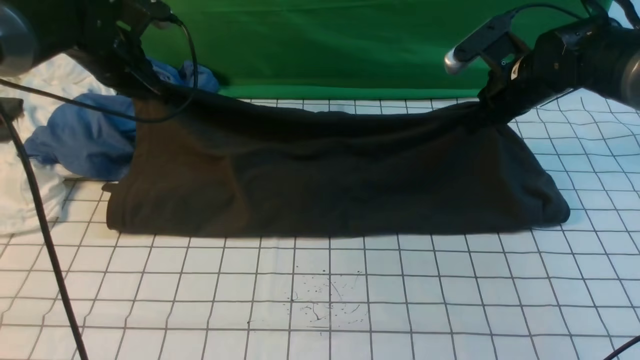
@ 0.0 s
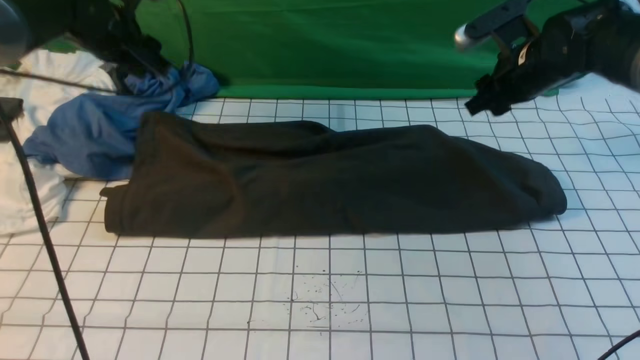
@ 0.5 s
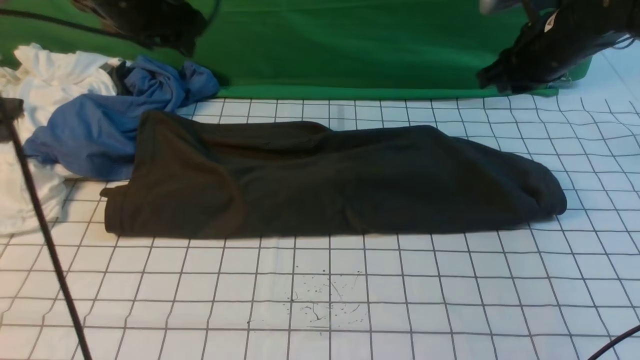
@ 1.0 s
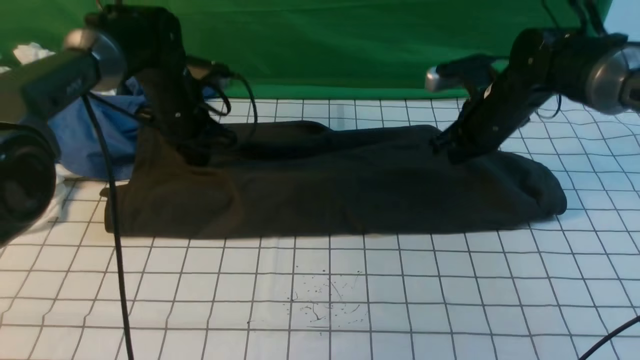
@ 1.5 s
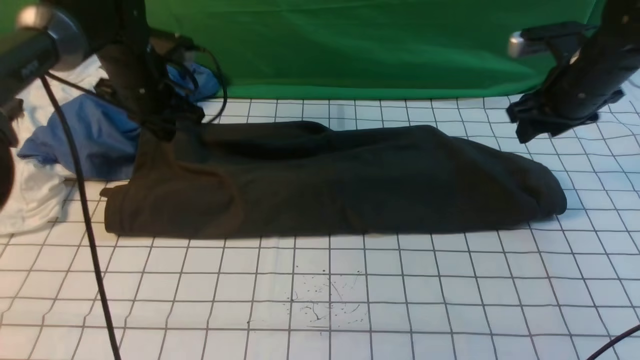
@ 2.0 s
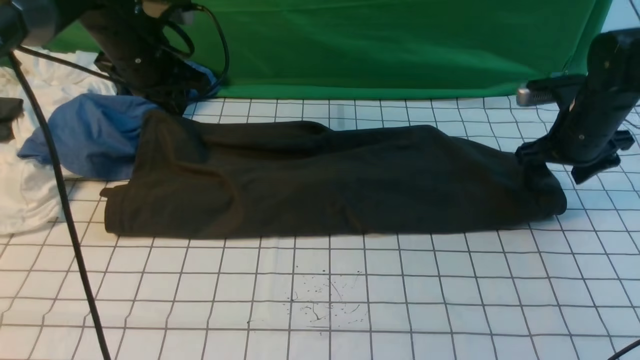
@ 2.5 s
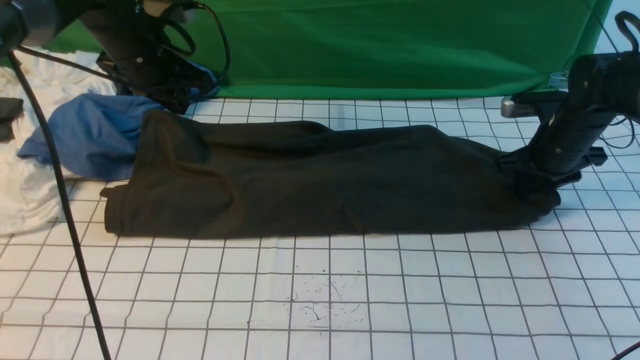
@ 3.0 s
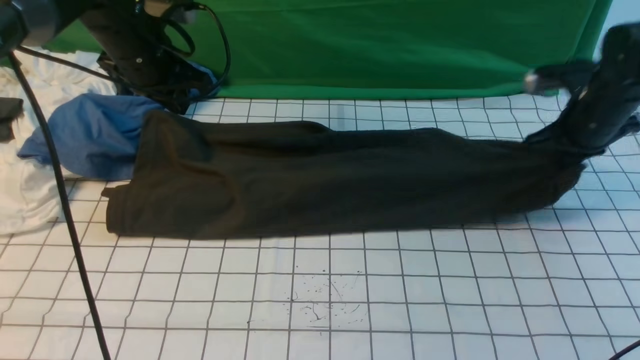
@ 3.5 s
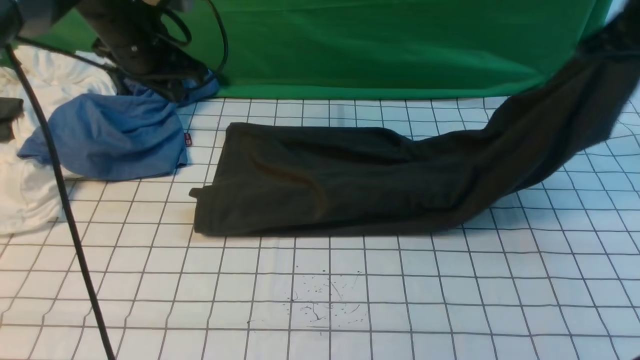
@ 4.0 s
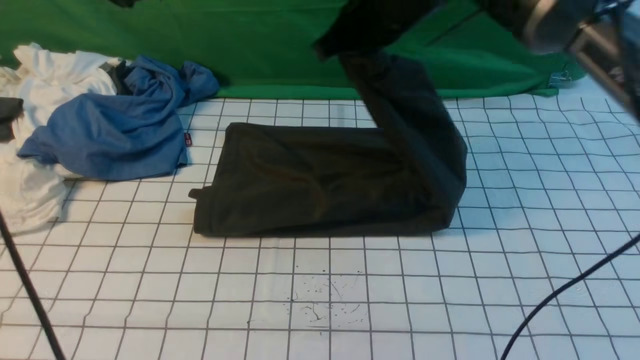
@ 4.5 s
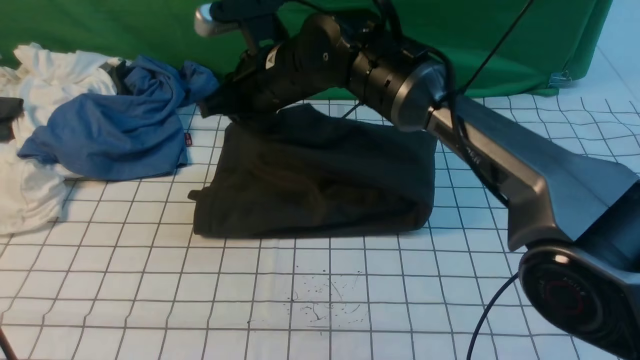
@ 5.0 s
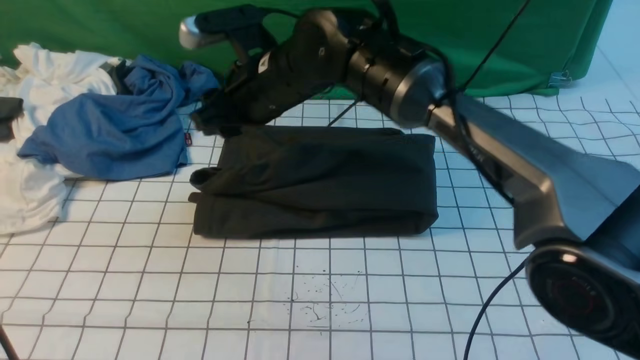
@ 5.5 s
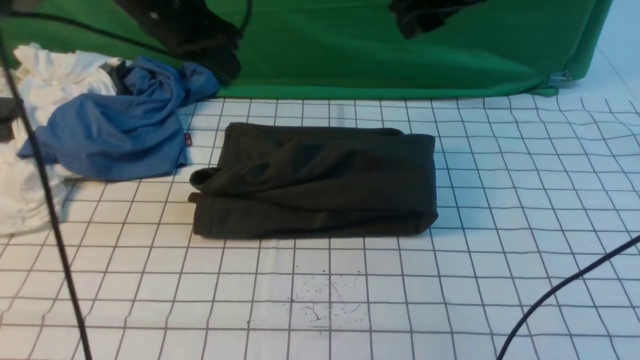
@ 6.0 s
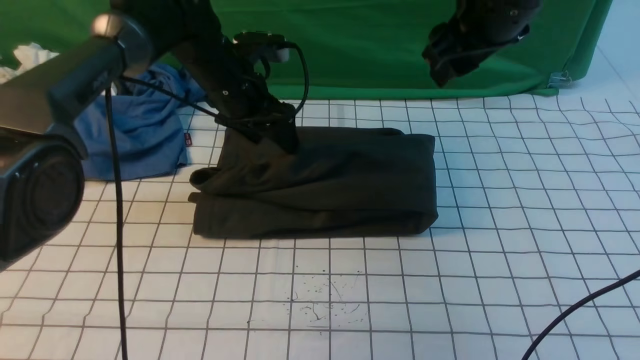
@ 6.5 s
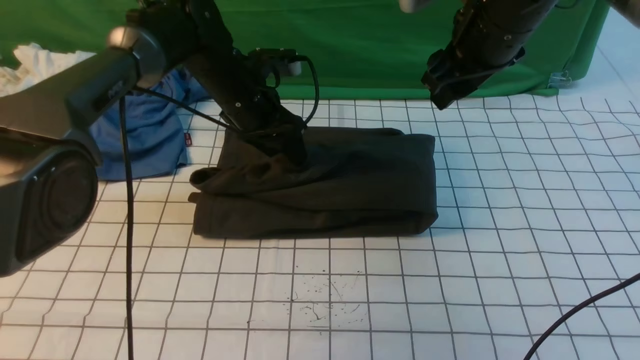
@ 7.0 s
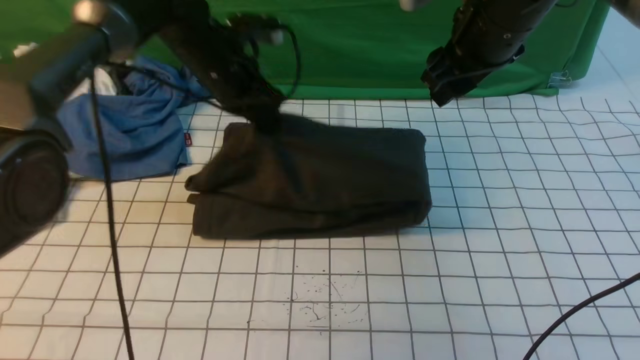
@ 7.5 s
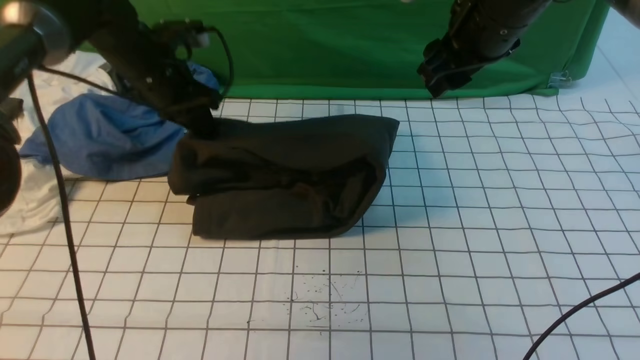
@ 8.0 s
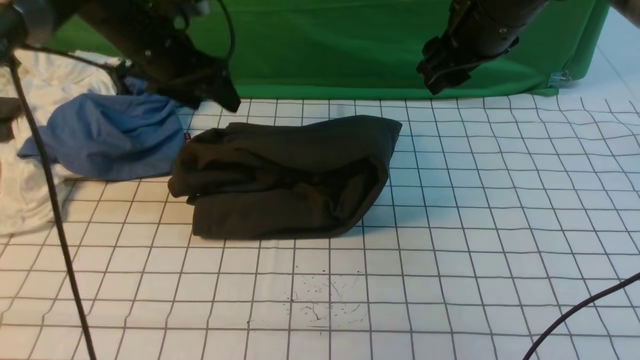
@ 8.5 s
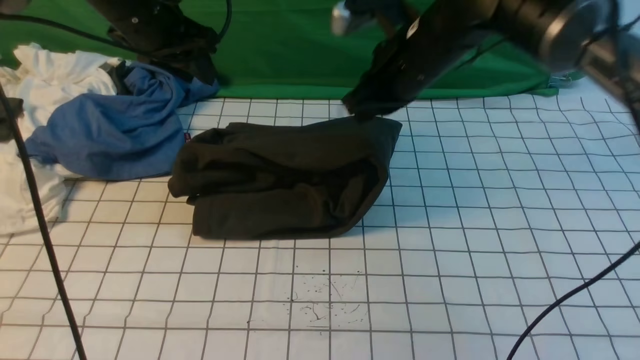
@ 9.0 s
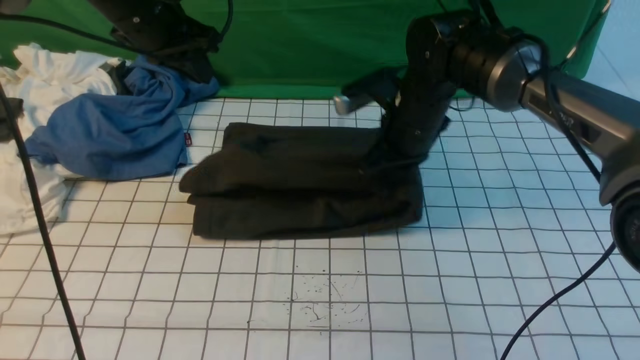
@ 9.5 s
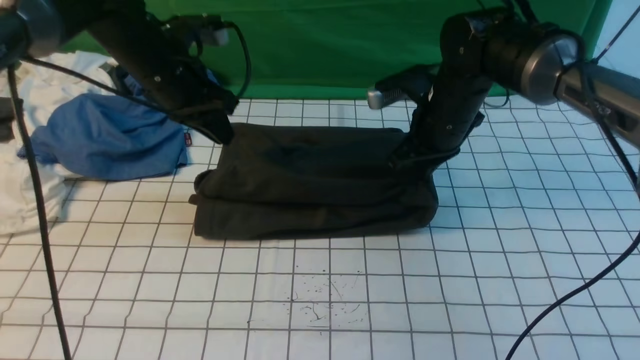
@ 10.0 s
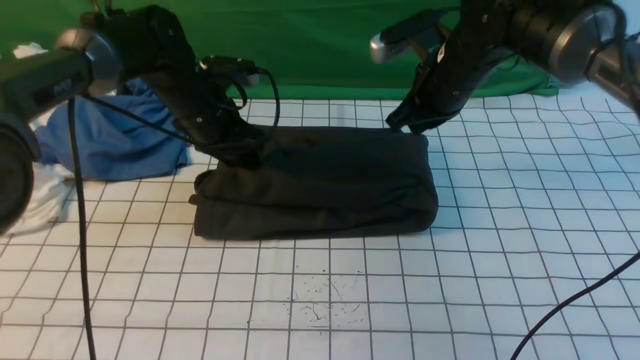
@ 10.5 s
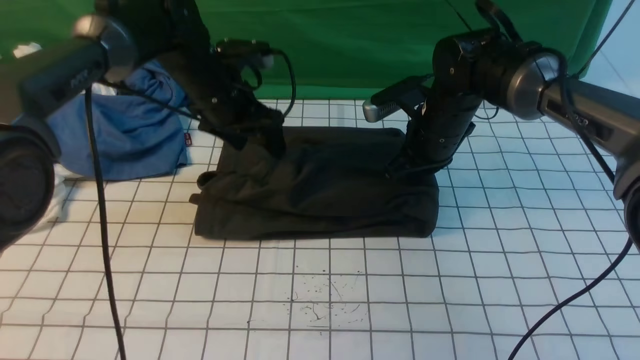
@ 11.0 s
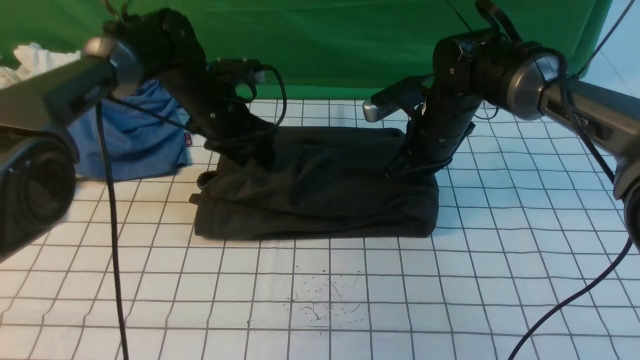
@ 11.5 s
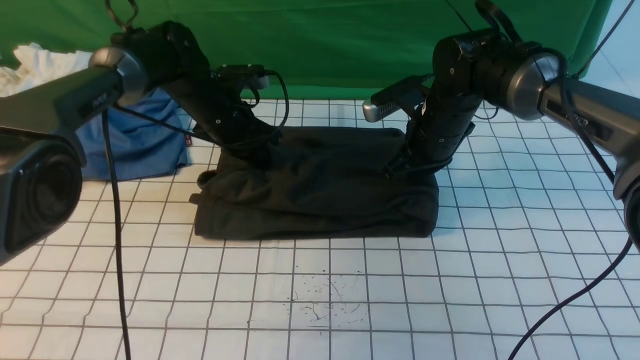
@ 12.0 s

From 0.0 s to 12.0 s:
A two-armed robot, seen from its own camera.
Step, from 1.0 s to 3.5 s: use the right arm to clamp the right edge of the fabric.
Step, from 4.0 s to 5.0 s: use the right arm to drag the right edge of the fabric to the left and folds it over the left edge.
From 0.0 s to 2.0 s: The right gripper shifts roughly 5 cm to the right, travels upward and back again, approximately 5 cm each way, and opens up, while the left gripper moves about 5 cm upward and comes back, and opens, then closes again.
From 2.0 s to 4.0 s: The right gripper shifts about 10 cm upward, and closes. Meanwhile the left gripper shifts approximately 5 cm upward.
From 4.0 s to 6.0 s: The right gripper shifts some 15 cm to the left, and opens. The left gripper goes to the left and returns, some 10 cm each way.
From 6.0 s to 8.0 s: The left gripper goes roughly 10 cm downward, and opens, then closes once more; the right gripper ends up some 5 cm from where it was.
From 8.0 s to 10.0 s: The right gripper travels downward by some 10 cm, and closes. Meanwhile the left gripper goes upward and returns, roughly 10 cm each way, and opens, then closes once more.
From 10.0 s to 12.0 s: The left gripper travels downward by roughly 5 cm, and opens, then closes again.

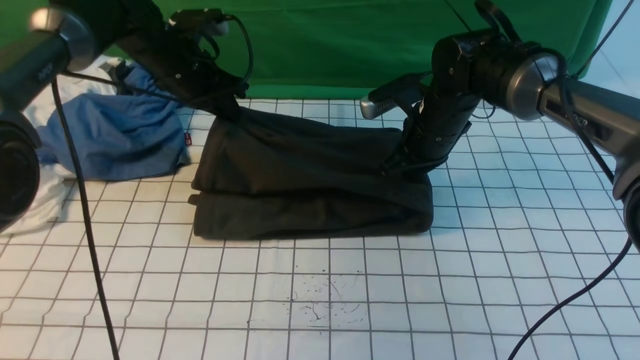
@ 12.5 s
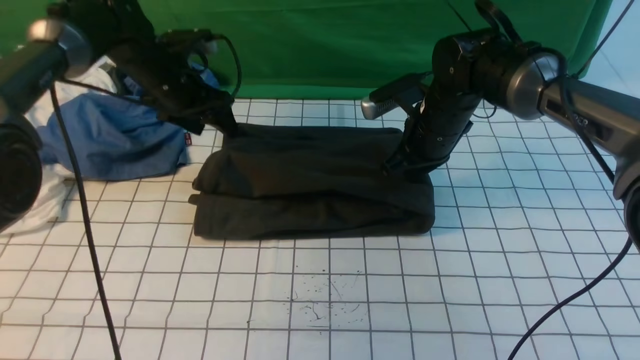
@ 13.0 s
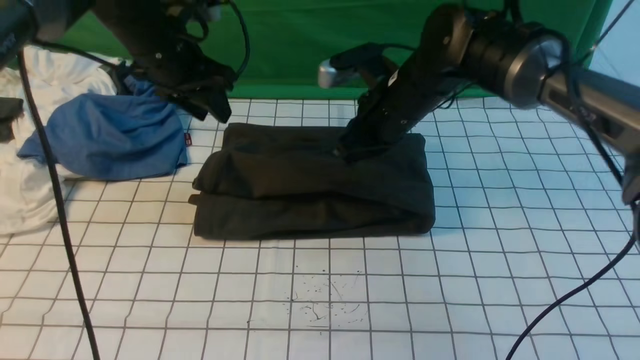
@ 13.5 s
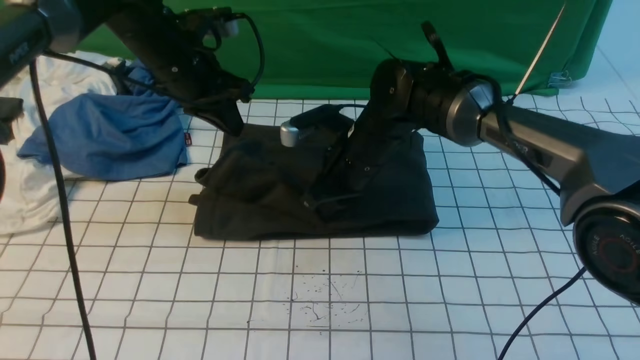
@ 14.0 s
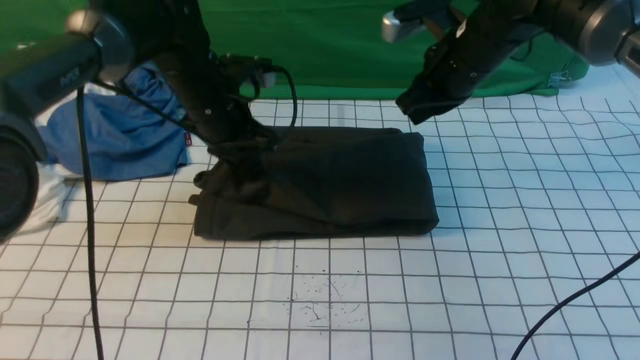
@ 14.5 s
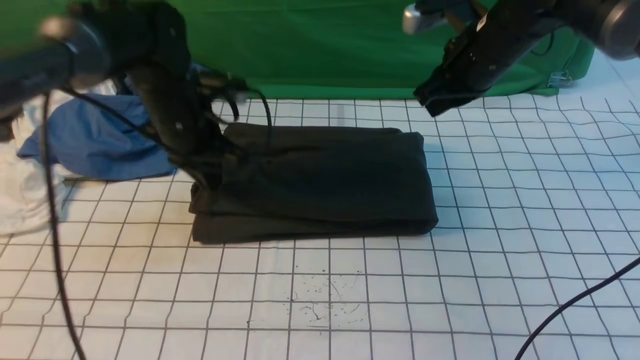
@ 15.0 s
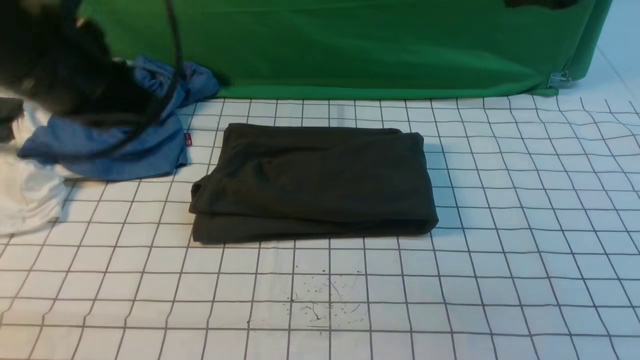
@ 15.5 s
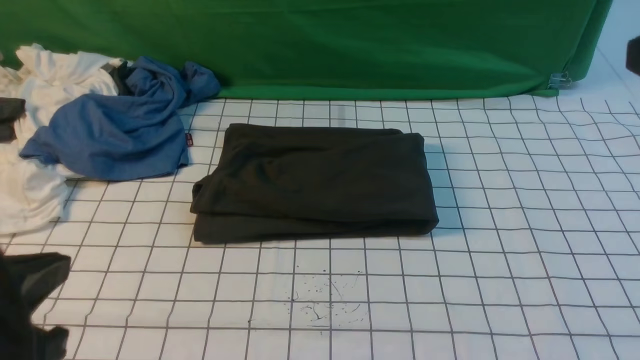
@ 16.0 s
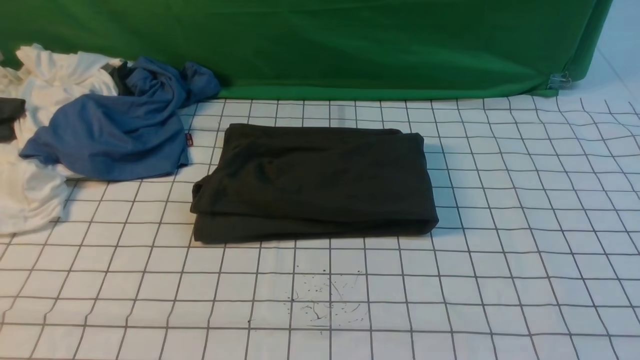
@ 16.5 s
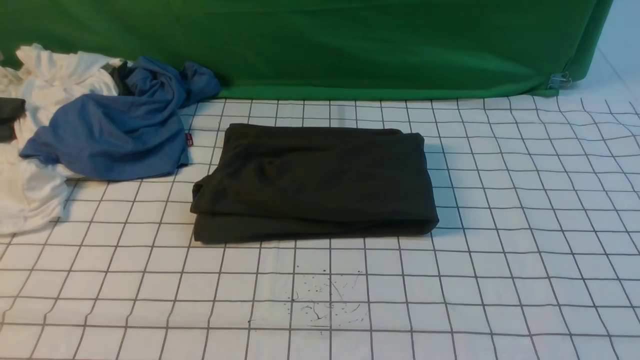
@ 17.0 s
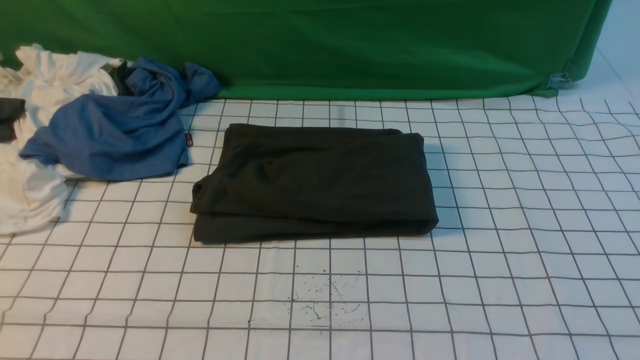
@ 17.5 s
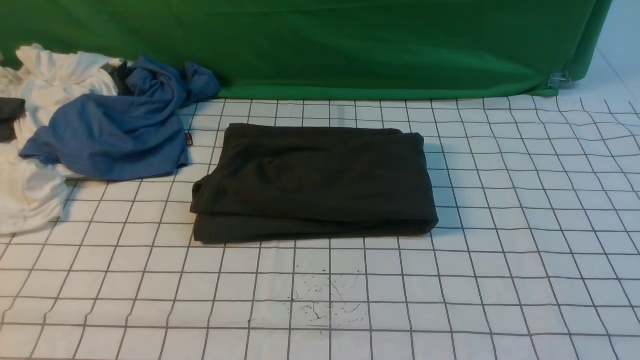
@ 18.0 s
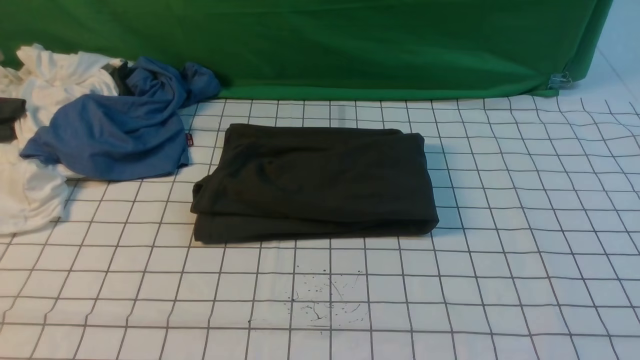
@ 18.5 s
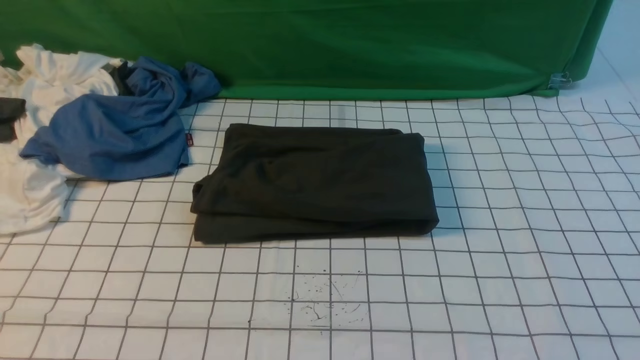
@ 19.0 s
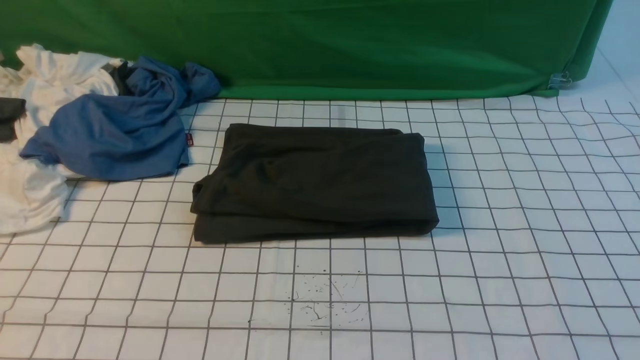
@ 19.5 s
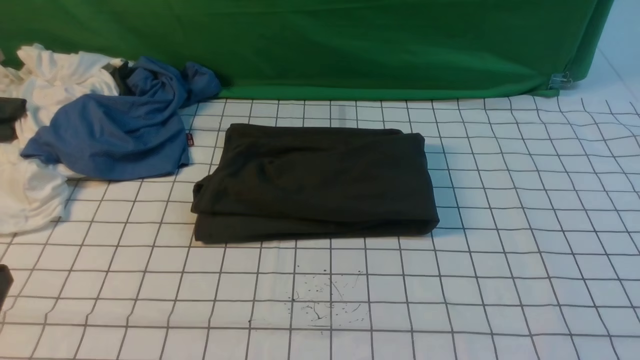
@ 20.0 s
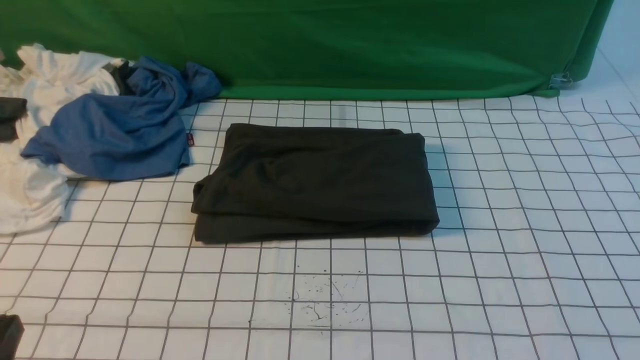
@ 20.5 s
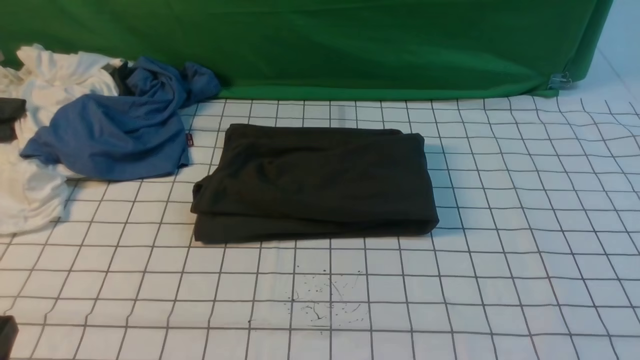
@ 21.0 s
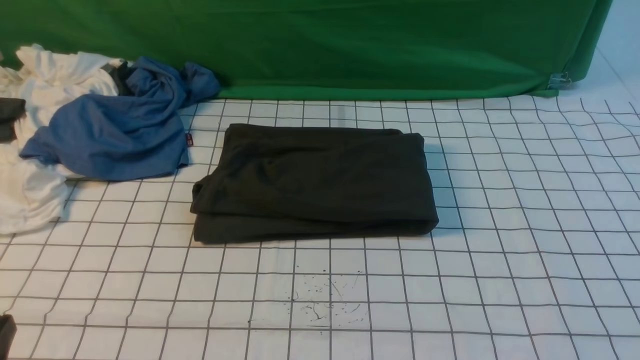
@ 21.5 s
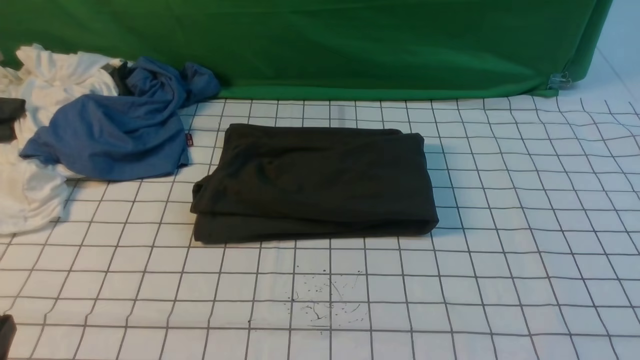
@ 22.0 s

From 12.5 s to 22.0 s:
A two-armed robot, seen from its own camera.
From 12.5 s to 14.5 s: The left gripper moves backward and to the right, approximately 10 cm, and opens, then closes once more. Meanwhile the right gripper moves upward, approximately 10 cm, and goes to the left and returns, roughly 10 cm each way.
From 14.5 s to 16.5 s: The left gripper is displaced backward by approximately 40 cm, while the right gripper moves backward and to the right, approximately 40 cm.
